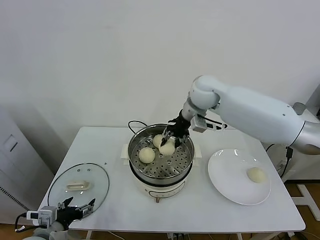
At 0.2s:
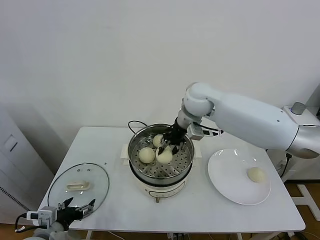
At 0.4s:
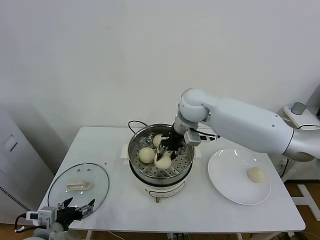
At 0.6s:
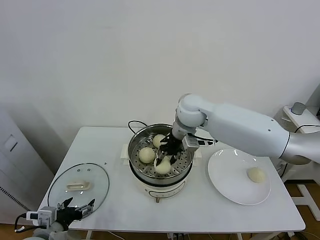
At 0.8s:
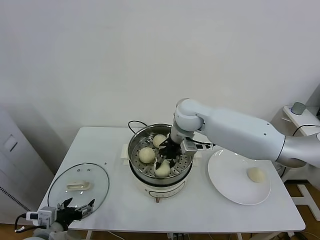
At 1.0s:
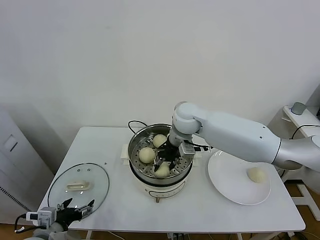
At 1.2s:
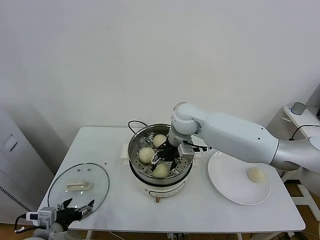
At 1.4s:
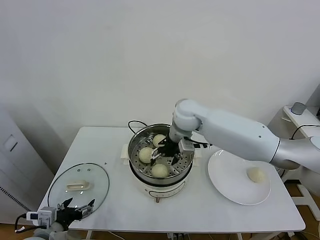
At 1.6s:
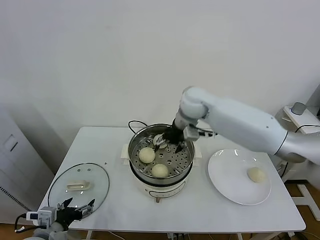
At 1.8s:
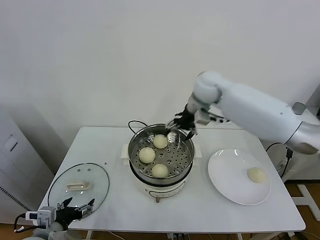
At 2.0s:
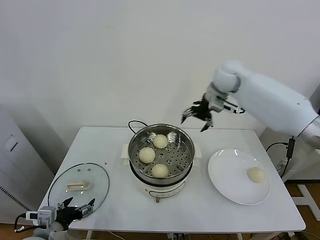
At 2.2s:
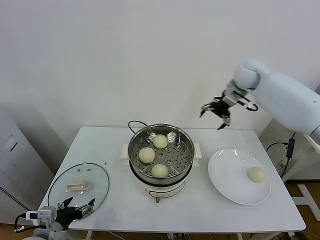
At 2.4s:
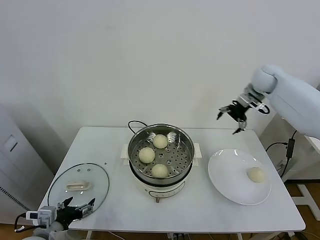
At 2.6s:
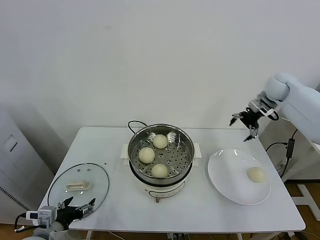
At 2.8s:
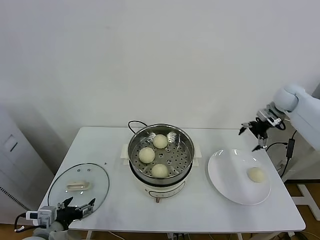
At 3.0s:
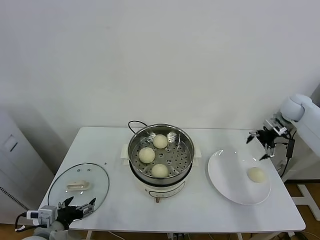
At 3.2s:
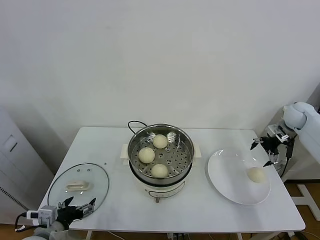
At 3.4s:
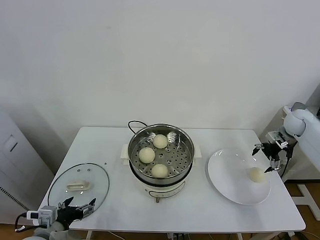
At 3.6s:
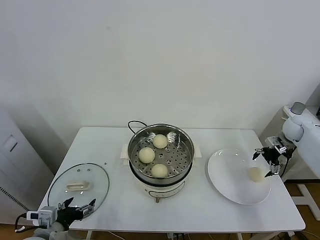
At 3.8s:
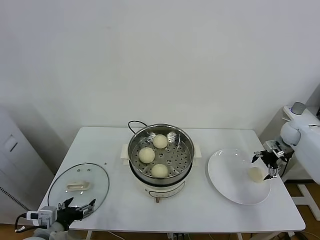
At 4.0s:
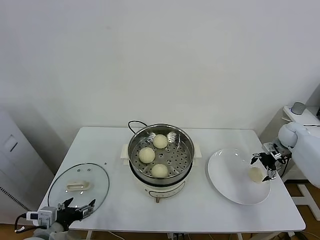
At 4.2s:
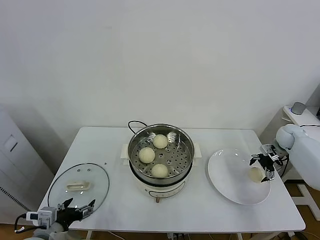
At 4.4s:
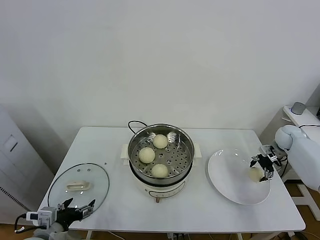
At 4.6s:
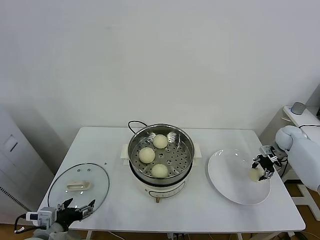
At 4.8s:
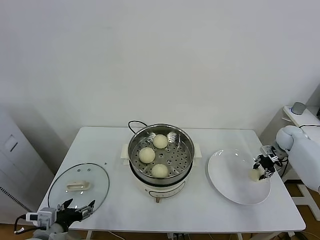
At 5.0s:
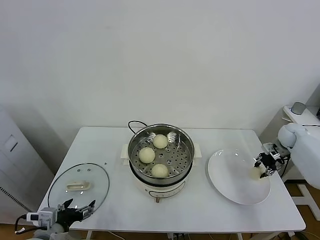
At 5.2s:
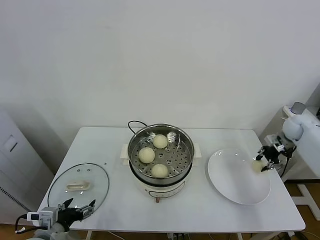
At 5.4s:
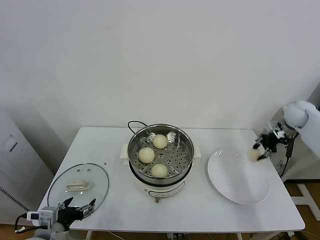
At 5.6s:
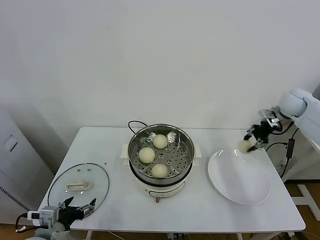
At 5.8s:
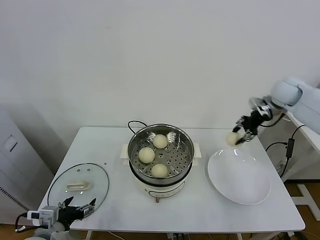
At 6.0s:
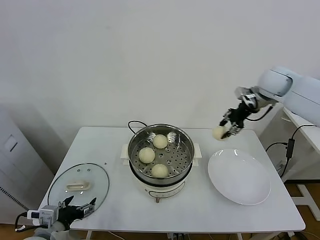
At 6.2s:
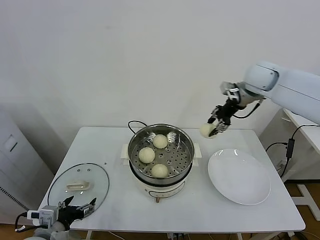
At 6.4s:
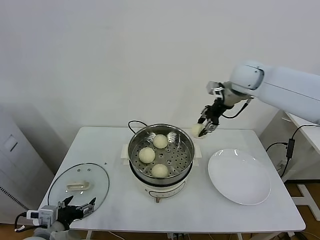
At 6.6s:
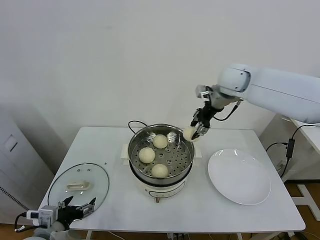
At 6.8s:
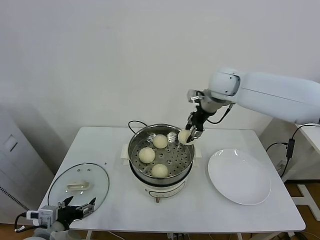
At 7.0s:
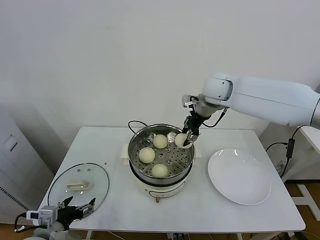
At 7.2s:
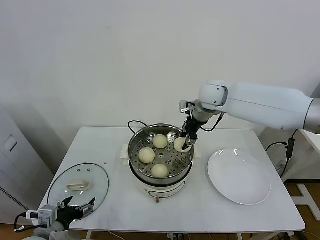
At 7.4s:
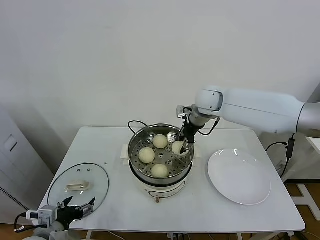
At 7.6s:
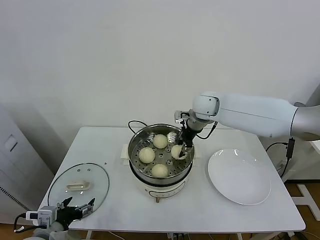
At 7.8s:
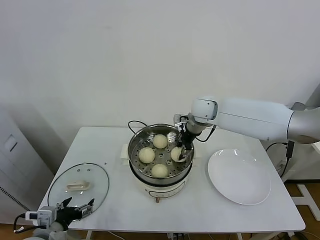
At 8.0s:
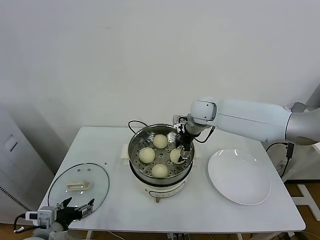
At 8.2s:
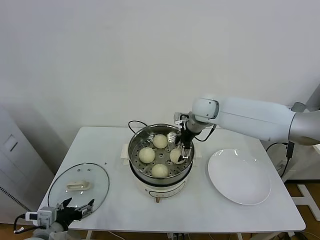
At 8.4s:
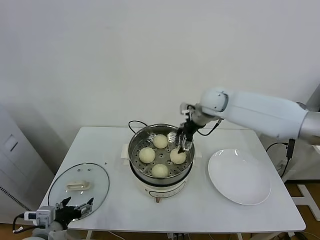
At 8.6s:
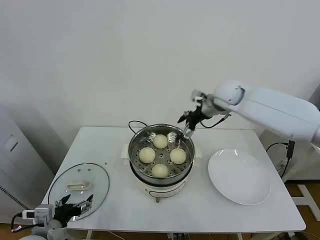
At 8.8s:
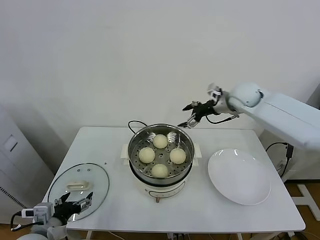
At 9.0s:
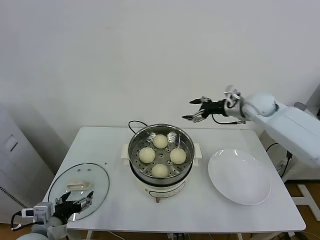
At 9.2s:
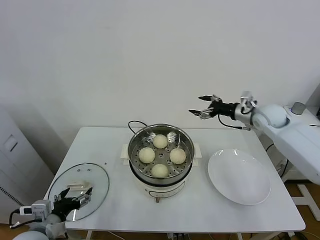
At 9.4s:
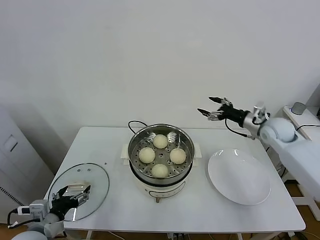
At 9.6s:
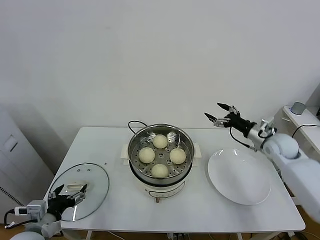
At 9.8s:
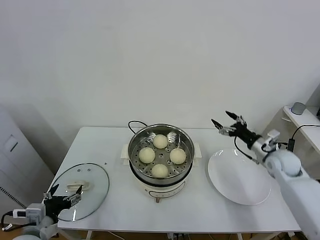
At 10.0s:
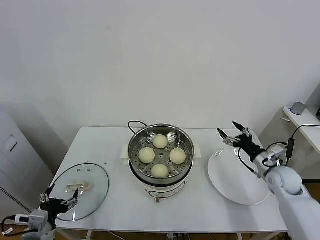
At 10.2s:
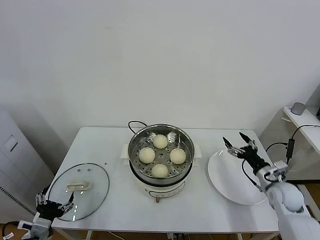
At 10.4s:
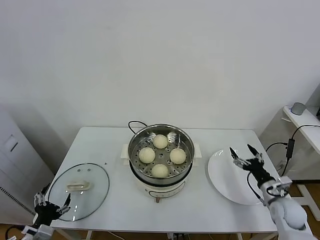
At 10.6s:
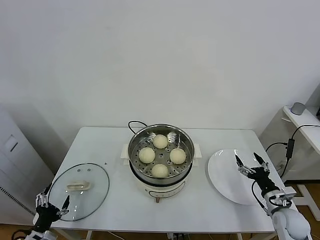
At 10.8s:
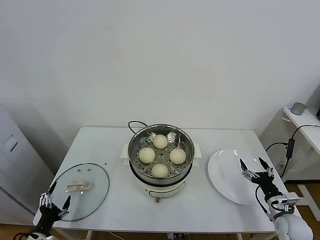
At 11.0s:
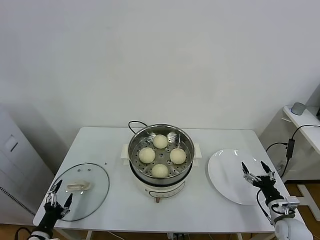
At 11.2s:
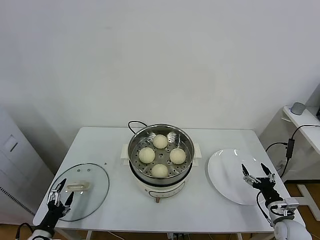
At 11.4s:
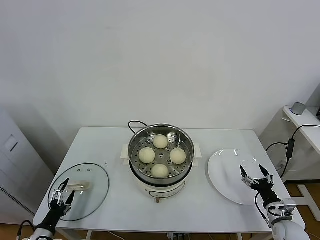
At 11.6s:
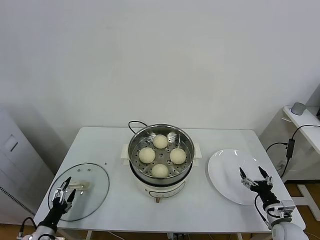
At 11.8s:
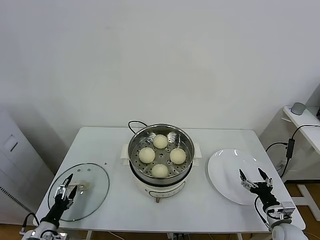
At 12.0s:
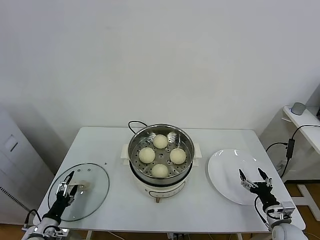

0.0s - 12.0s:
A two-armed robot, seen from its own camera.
Task of the whole recording: take steamed baozi put them in steamer.
Step, 1.6s - 4.8s: Grasp the baozi in the plate with right gripper.
Step, 5.0s - 8.2s: Place the baozi on the steamer with right gripper.
0.0s - 1.6s: The right gripper opens.
1.6s - 3.0s: The right gripper shifts some 40 cm to the right.
3.0s - 4.4s: The right gripper goes some 15 cm downward.
4.4s - 6.0s: The right gripper moves upward and to the left, some 30 cm, and closes up.
6.0s - 7.6s: The right gripper is displaced to the left and downward by about 20 cm.
7.6s - 9.0s: The right gripper moves to the right, about 15 cm, and opens its fingers.
9.0s - 10.4s: The left gripper is displaced downward and to the left by some 10 cm. Meanwhile the right gripper is displaced downward and backward by approximately 35 cm.
10.4s - 12.0s: The right gripper shifts some 10 cm downward and backward. Meanwhile the left gripper moves downward, forward and to the left, roughly 15 cm.

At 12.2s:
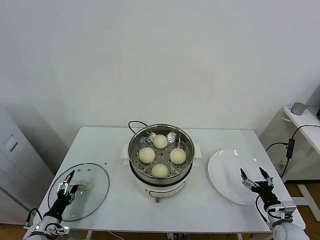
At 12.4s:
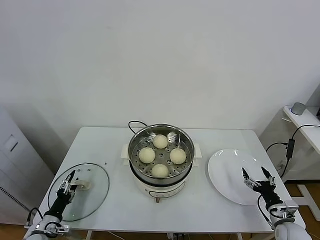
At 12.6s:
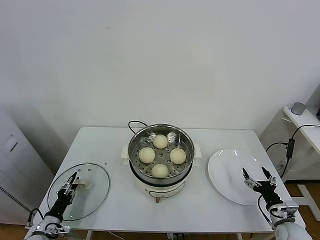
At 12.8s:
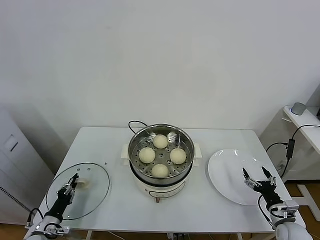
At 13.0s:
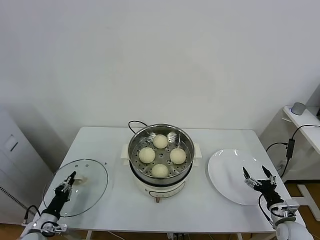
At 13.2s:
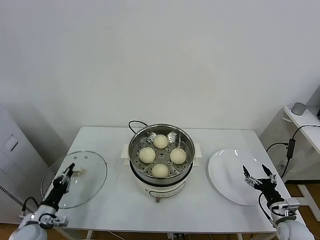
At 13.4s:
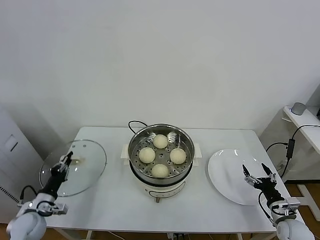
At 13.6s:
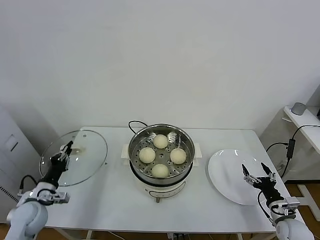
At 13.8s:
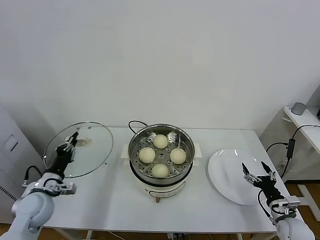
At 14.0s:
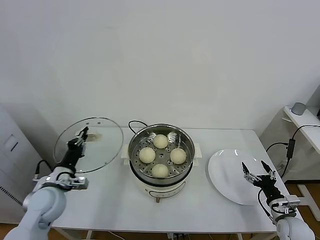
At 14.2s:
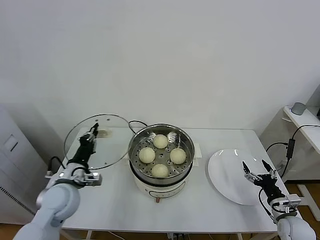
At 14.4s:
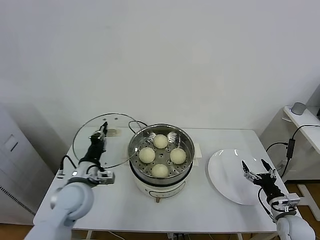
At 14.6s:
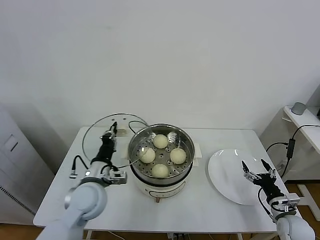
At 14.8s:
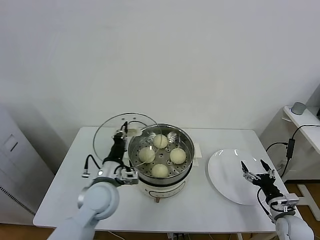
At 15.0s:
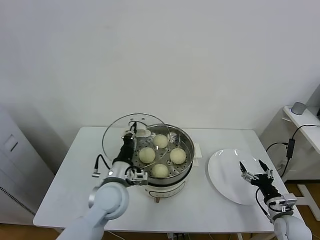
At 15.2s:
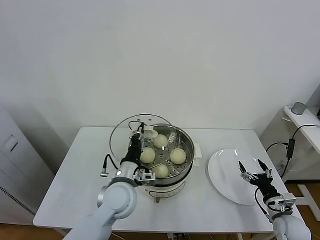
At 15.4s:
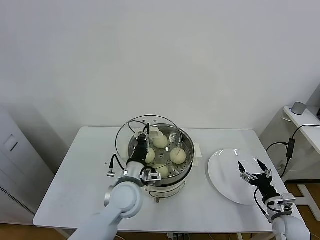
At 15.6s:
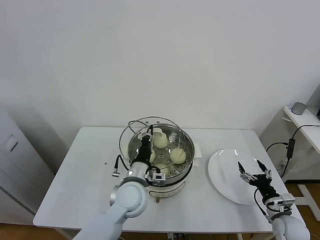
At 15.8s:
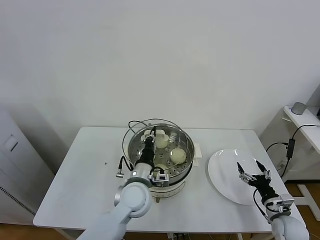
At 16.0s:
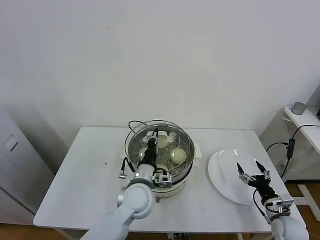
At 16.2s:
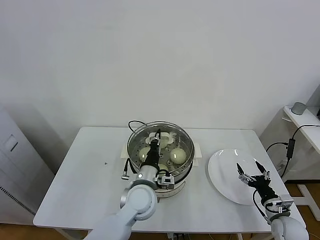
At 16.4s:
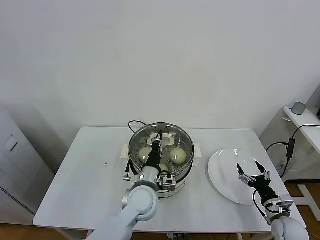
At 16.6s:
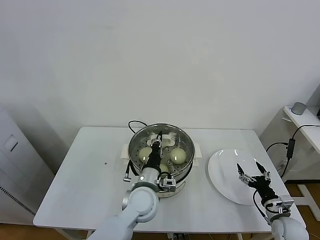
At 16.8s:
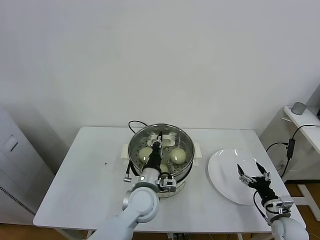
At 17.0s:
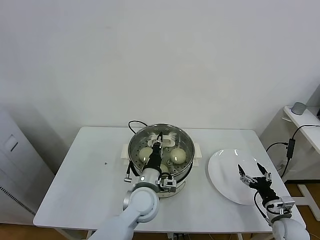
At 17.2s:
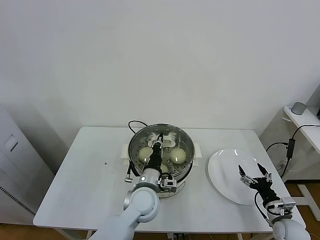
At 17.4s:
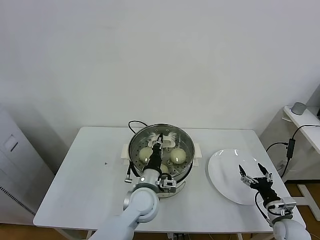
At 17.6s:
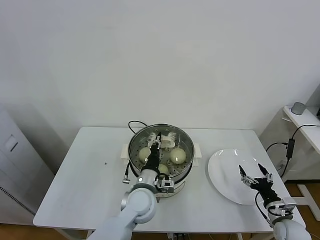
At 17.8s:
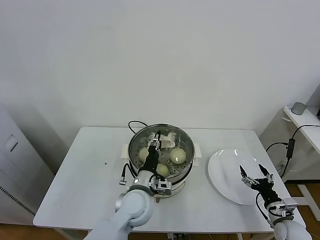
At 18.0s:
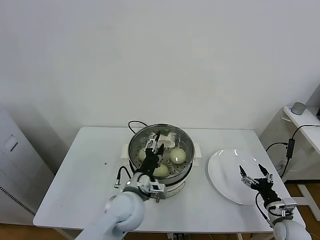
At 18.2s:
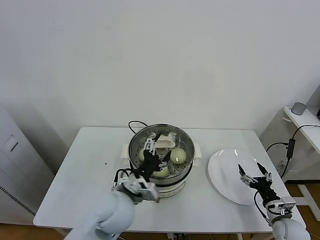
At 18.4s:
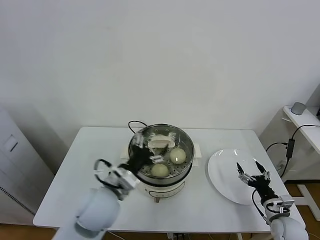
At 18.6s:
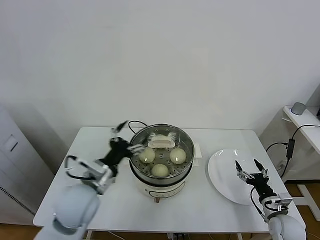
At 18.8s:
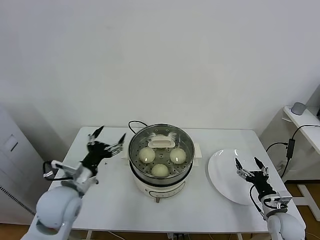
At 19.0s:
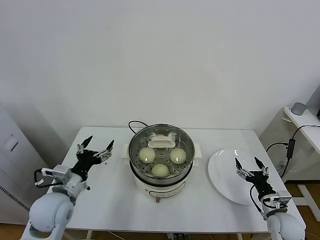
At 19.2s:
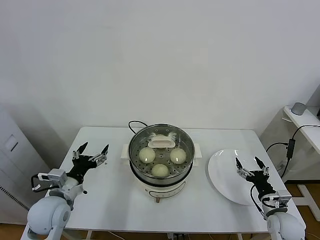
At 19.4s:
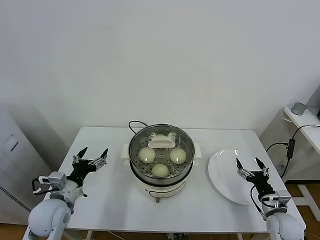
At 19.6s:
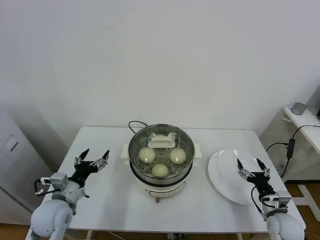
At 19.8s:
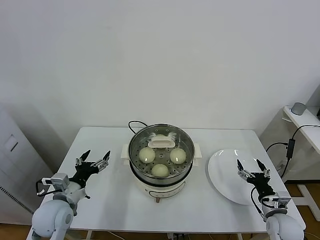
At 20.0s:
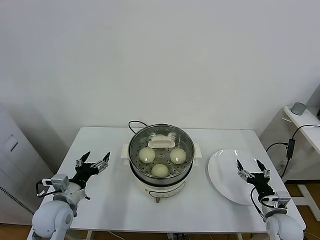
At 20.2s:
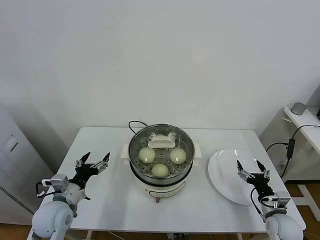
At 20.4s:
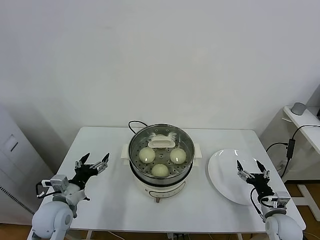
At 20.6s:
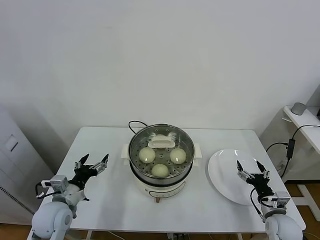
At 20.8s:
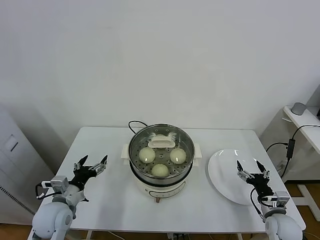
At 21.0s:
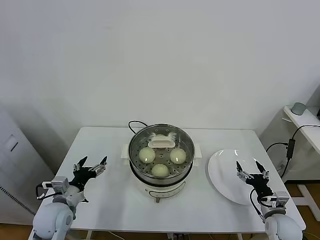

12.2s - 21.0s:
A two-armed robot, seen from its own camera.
Task of the whole recording: take steamed baozi put them in steamer.
Step, 13.2s - 17.8s: Place the pot lid on the steamer with left gripper.
12.2s - 13.6s: The left gripper moves upward and forward, some 15 cm, and closes up.
13.6s - 15.2s: The left gripper moves to the right, roughly 30 cm.
15.2s - 16.6s: The left gripper shifts about 5 cm to the right.
16.6s - 18.0s: The left gripper opens.
18.0s - 19.6s: The left gripper heads to the left, covering some 20 cm, and opens up.
19.6s - 21.0s: The grippers stay close to where they were, moving slightly.

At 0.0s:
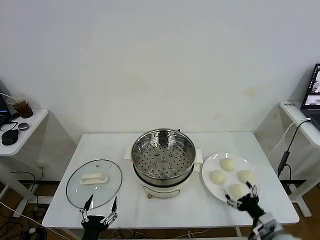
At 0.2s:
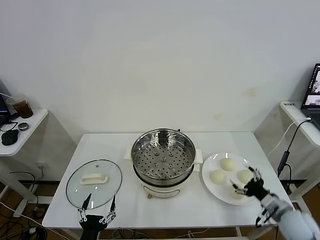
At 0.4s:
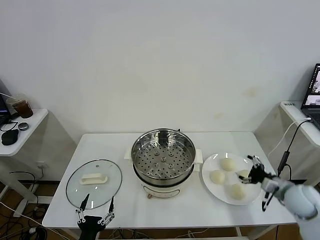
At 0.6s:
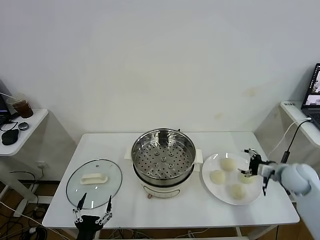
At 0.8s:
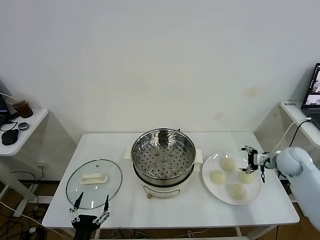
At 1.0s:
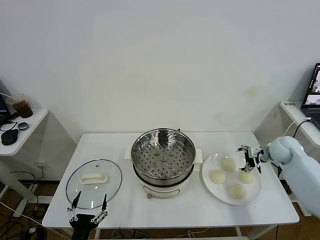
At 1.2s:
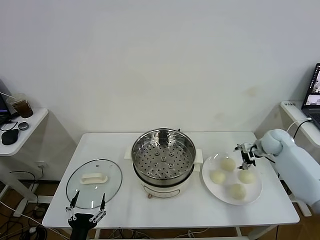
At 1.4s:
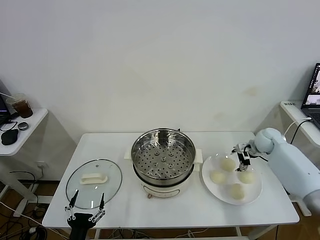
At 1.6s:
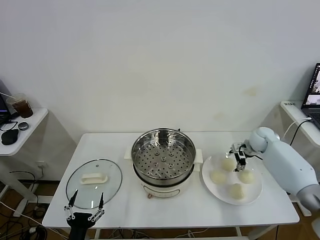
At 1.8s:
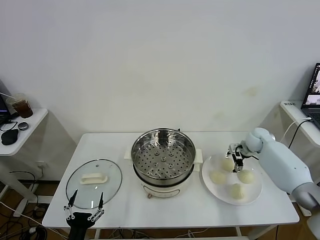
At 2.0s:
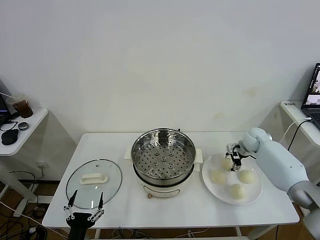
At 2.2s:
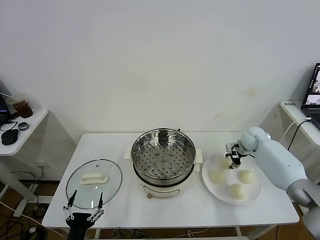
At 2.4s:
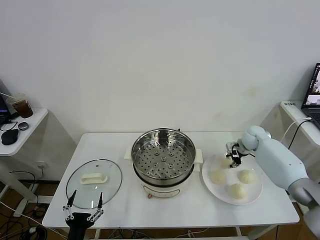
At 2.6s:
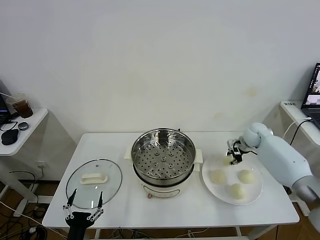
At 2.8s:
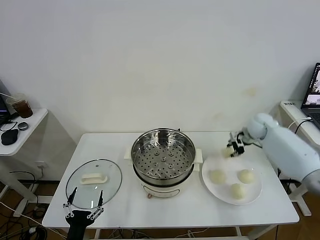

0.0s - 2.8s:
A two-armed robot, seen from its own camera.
Task of the whole recording: take steamed baozi put them in steamer.
Step, 0.0s - 2.0s: Grasp the baozi in the plate with right gripper.
1.4s - 2.8s: The right gripper goes about 5 cm upward, and closes.
